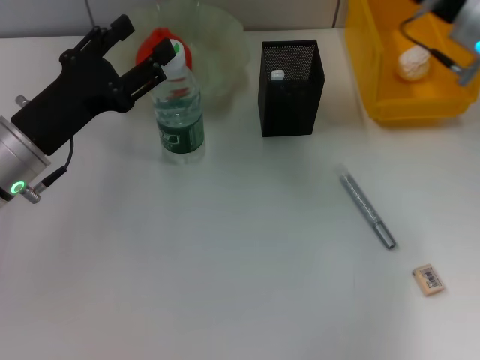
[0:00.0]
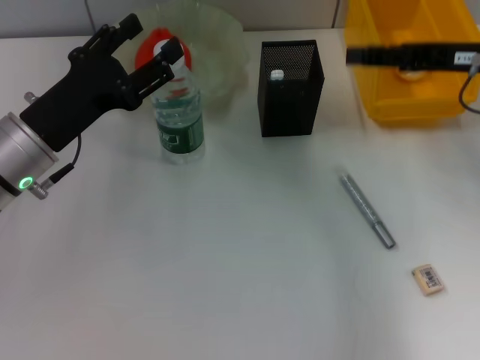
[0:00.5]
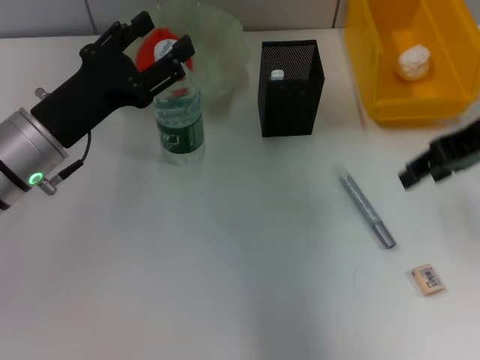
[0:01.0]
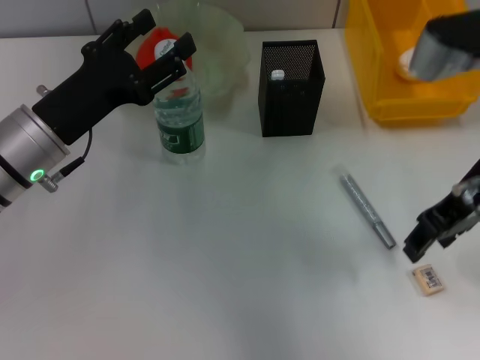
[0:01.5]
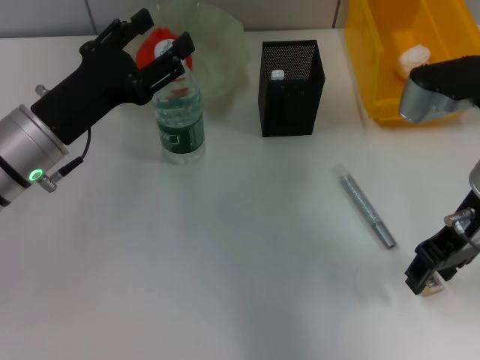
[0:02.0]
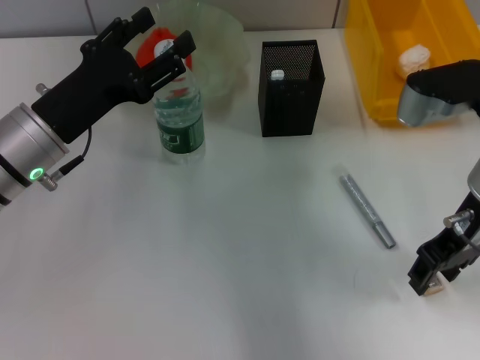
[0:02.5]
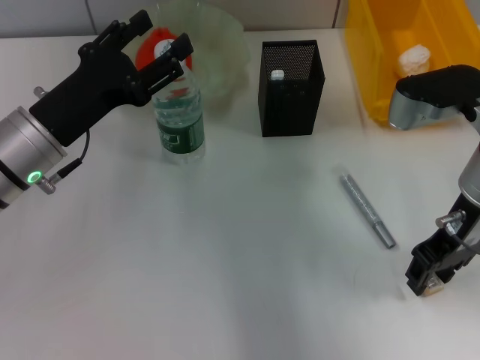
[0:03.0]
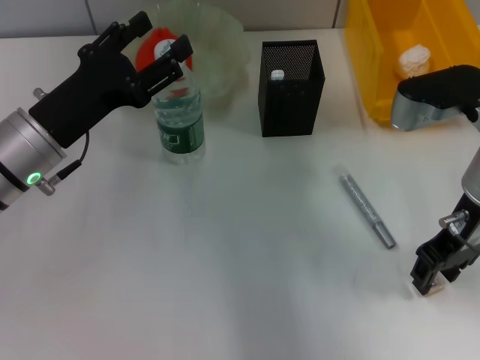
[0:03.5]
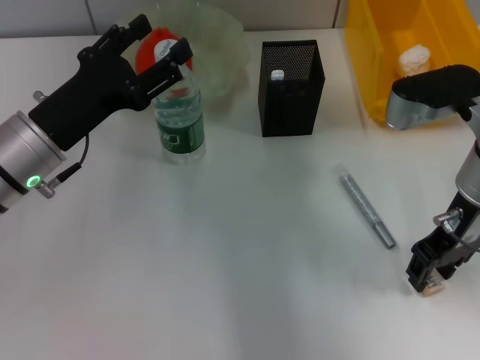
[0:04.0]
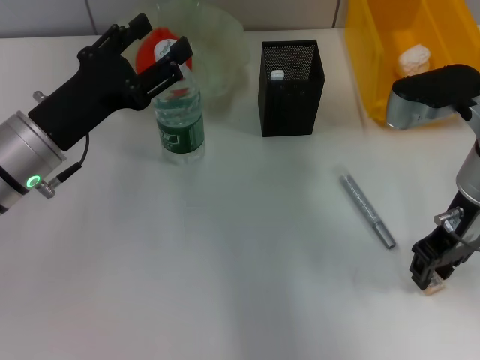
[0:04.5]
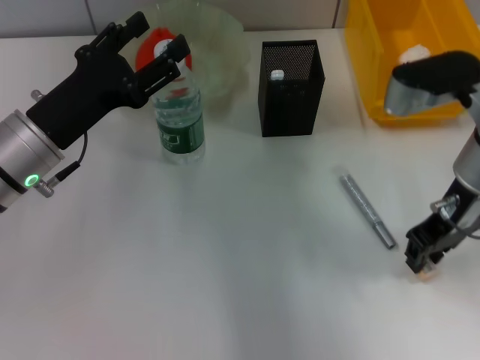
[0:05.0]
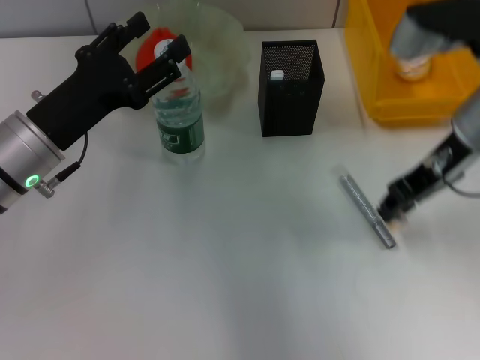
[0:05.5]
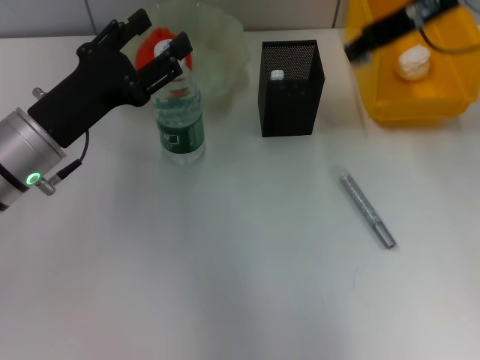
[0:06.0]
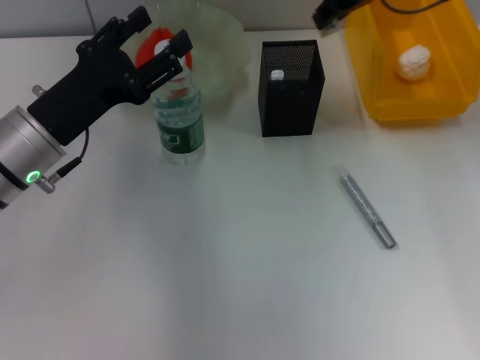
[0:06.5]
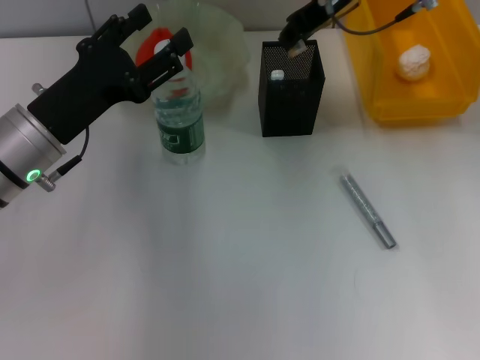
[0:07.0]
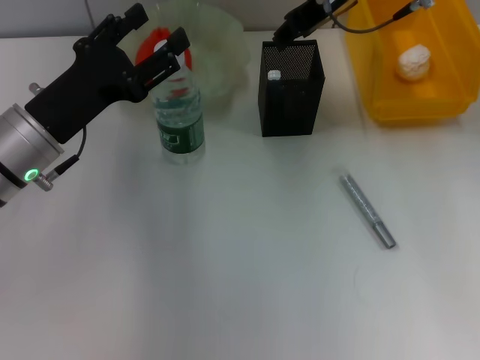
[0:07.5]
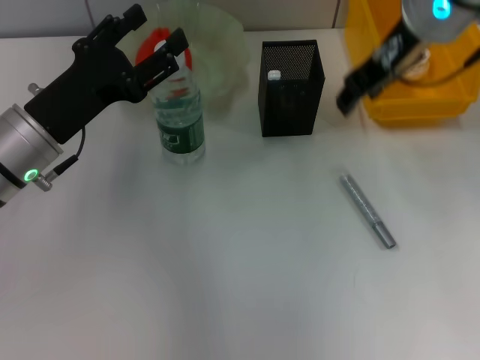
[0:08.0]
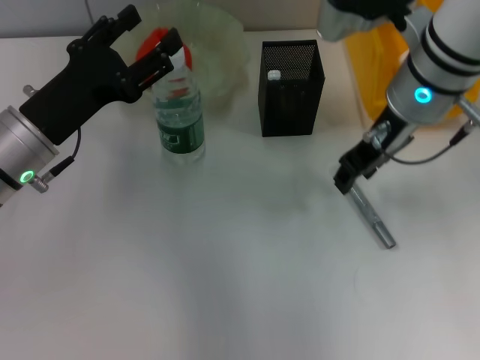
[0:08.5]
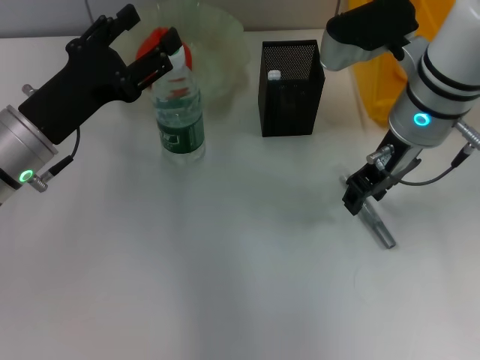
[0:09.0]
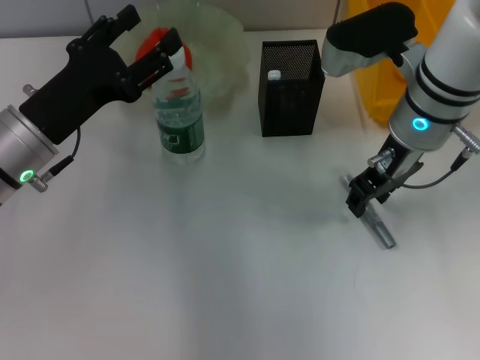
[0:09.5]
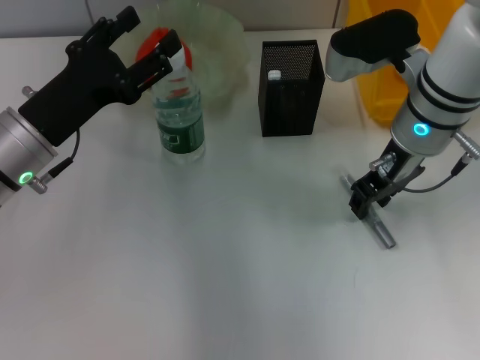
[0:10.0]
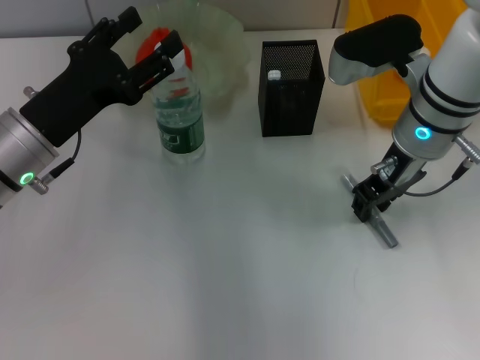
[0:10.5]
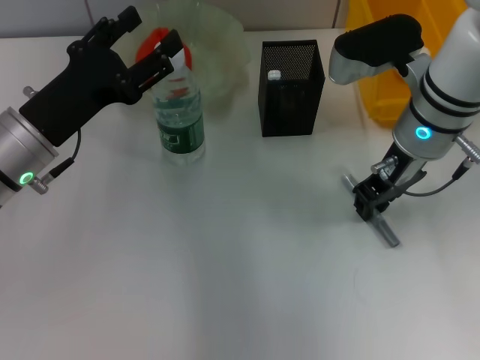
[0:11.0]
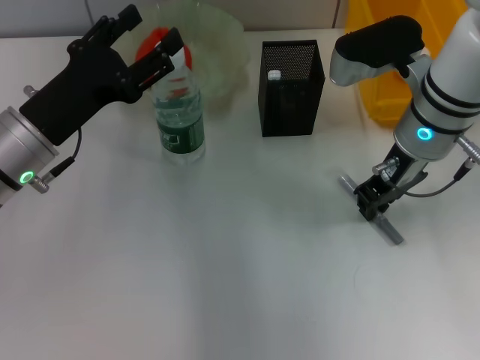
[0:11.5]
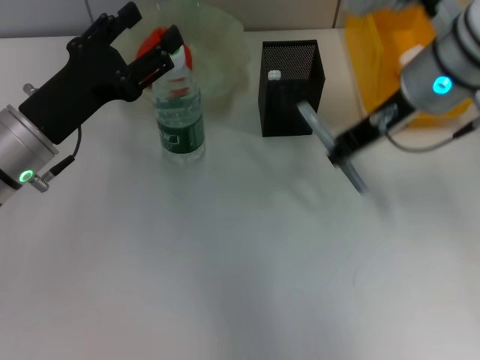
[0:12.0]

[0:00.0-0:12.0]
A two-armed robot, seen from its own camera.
Step, 0:00.0 to 0:04.5: Grab the eraser with the right hand.
Step, 0:05.0 to 0:07.0: Put the eraser into the pen holder with the right hand.
Step, 0:07.5 to 0:11.0: Grab the gray glue with the right hand.
0:00.0 to 0:02.0: The right gripper goes roughly 5 cm backward, and opens up.
0:02.0 to 0:04.0: There are only small adjustments of the grippers.
0:04.0 to 0:06.0: The right gripper travels upward and forward by some 15 cm.
0:08.0 to 0:10.0: The right gripper is displaced downward by approximately 10 cm.
0:10.0 to 0:12.0: The right gripper is displaced upward by roughly 5 cm, and closes up.

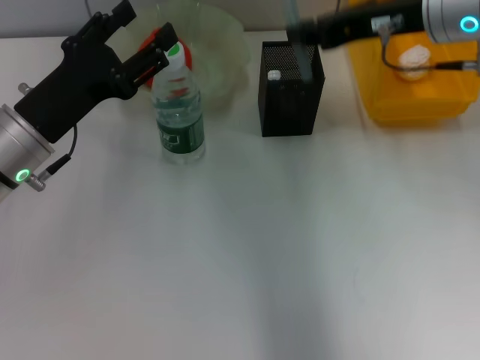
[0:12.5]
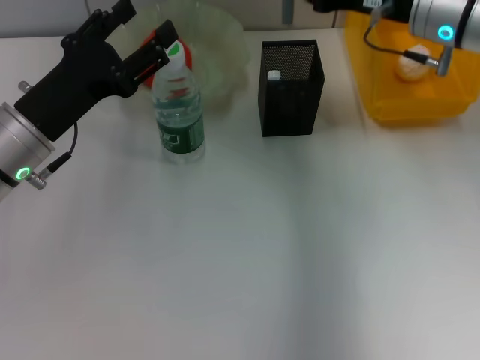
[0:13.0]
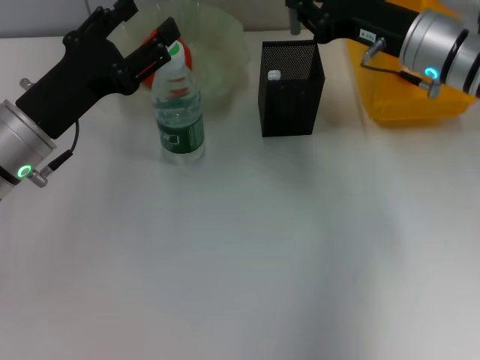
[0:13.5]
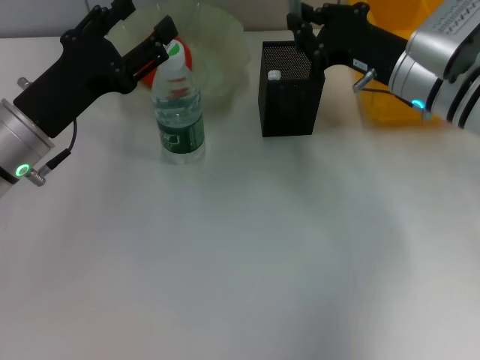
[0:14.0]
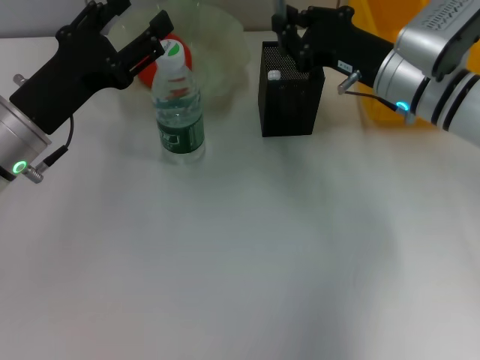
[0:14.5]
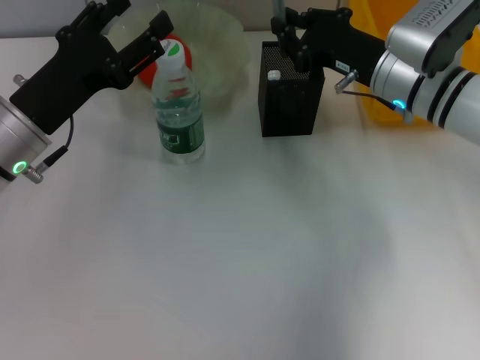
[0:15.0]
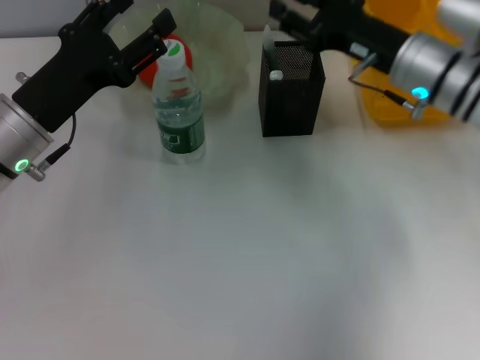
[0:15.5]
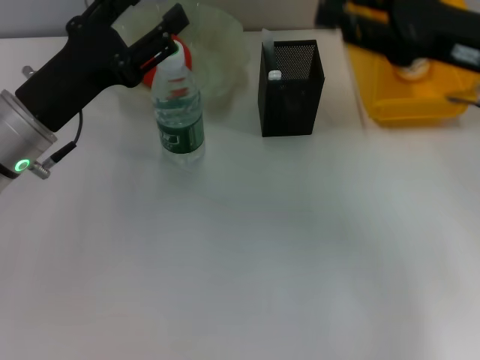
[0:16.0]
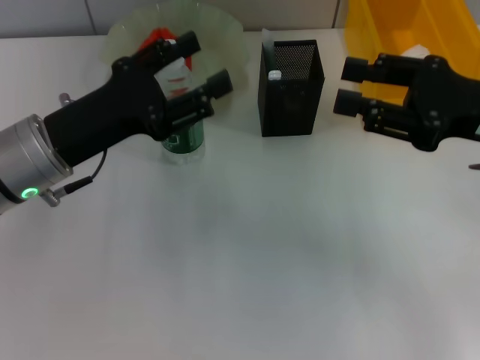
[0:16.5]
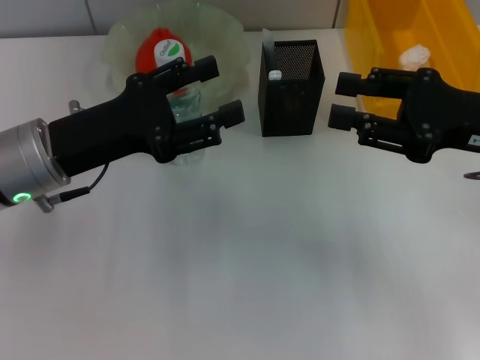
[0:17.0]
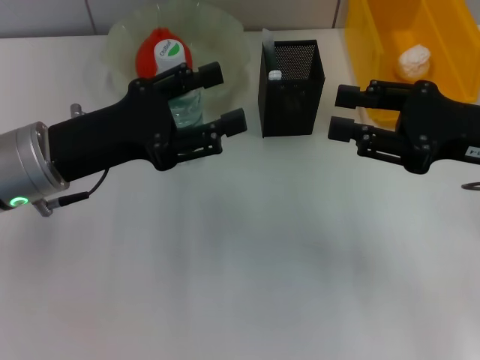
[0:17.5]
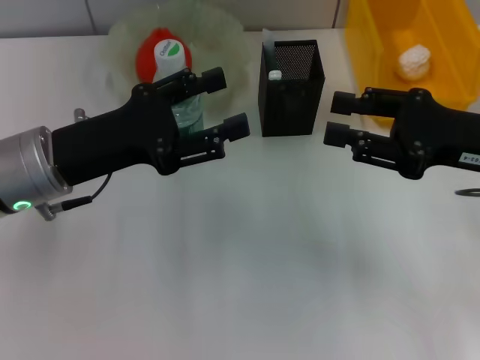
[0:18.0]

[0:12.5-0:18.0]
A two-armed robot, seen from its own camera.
Step, 0:12.5 to 0:15.5: Place the gray glue into the pen holder with the right hand.
0:12.5 to 0:14.5: The right gripper heads downward, covering roughly 10 cm.
0:14.5 to 0:16.0: The right gripper moves upward, backward and to the right, approximately 15 cm, and opens its fingers.
0:16.0 to 0:18.0: The right gripper moves some 5 cm.
